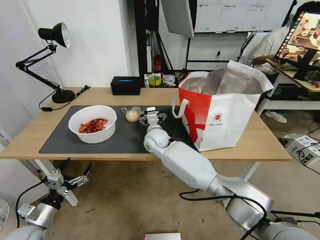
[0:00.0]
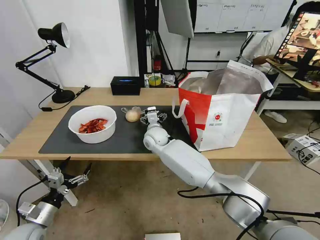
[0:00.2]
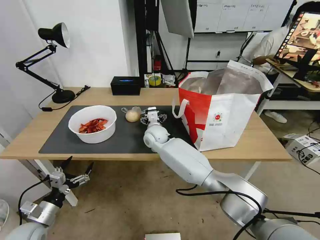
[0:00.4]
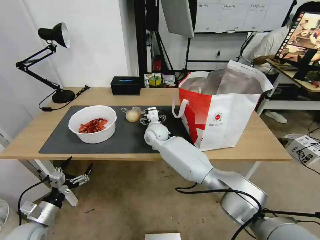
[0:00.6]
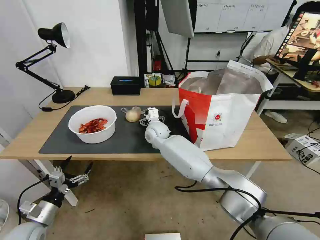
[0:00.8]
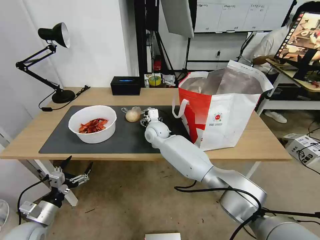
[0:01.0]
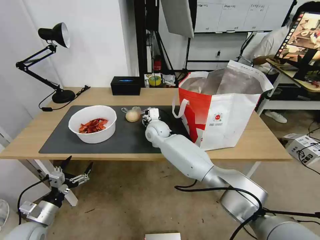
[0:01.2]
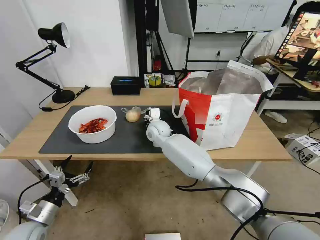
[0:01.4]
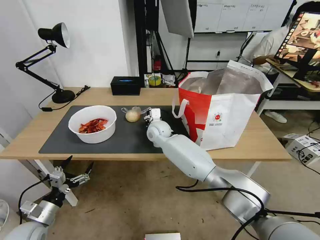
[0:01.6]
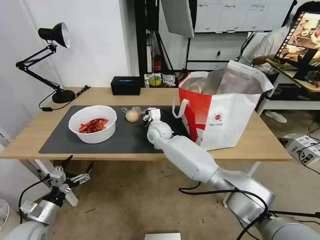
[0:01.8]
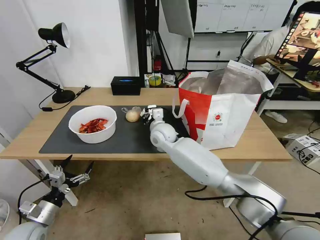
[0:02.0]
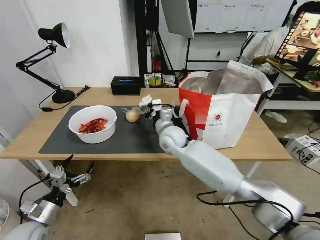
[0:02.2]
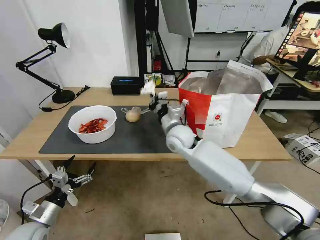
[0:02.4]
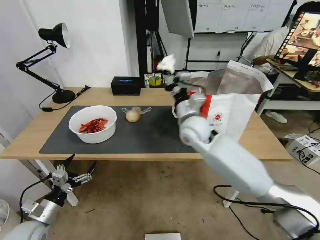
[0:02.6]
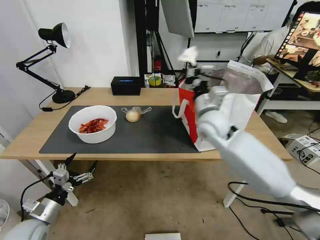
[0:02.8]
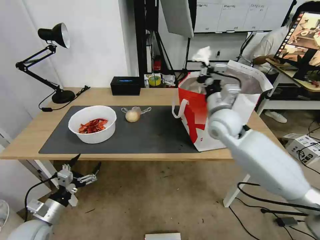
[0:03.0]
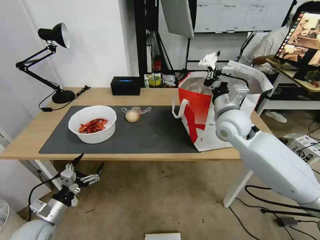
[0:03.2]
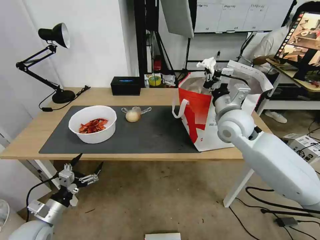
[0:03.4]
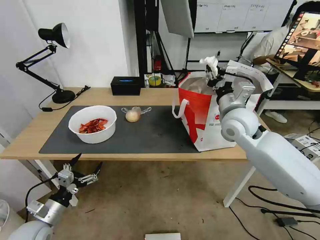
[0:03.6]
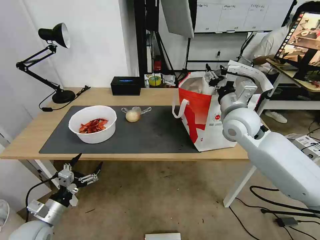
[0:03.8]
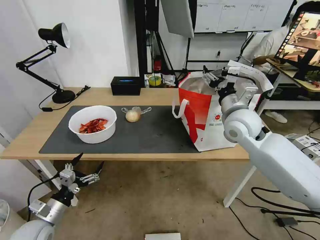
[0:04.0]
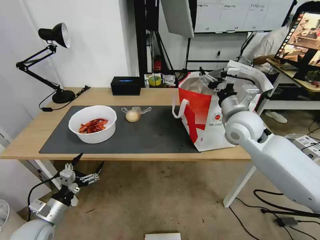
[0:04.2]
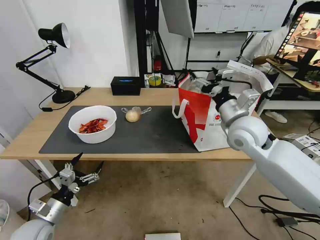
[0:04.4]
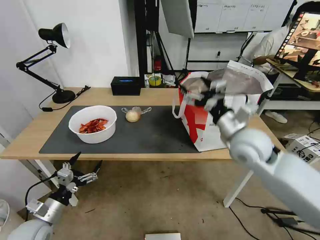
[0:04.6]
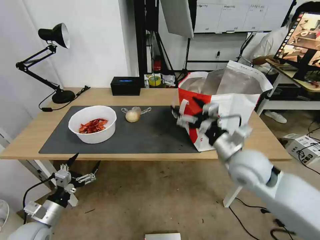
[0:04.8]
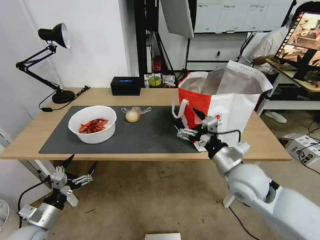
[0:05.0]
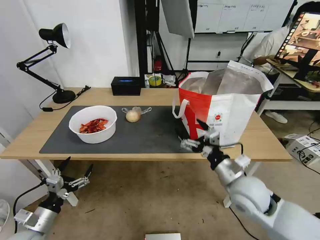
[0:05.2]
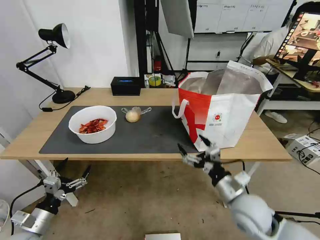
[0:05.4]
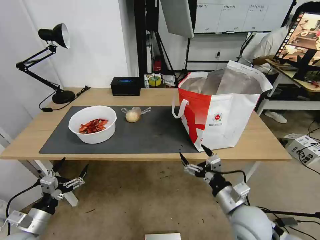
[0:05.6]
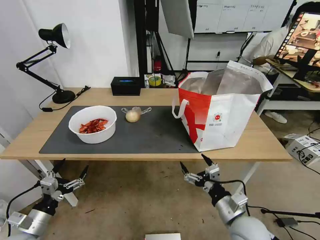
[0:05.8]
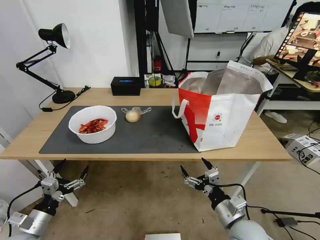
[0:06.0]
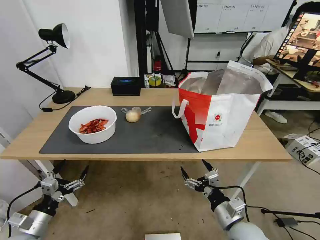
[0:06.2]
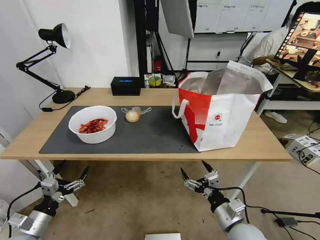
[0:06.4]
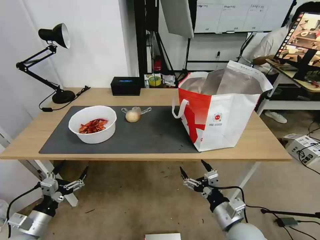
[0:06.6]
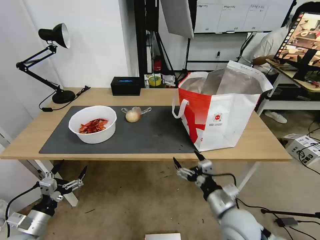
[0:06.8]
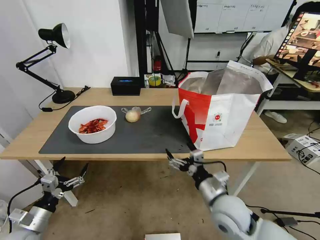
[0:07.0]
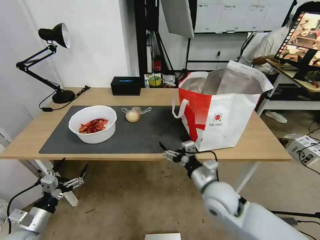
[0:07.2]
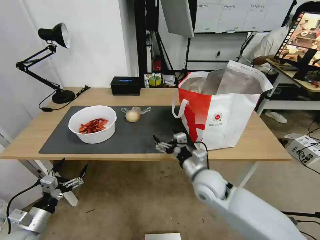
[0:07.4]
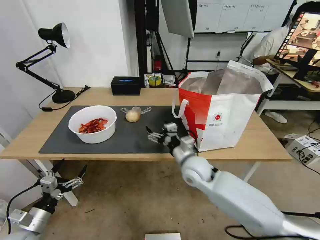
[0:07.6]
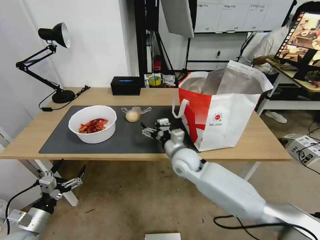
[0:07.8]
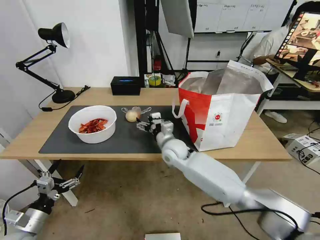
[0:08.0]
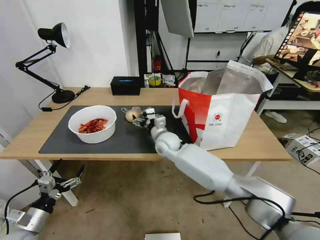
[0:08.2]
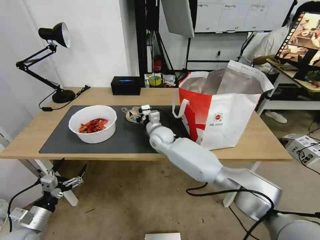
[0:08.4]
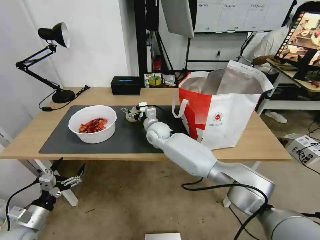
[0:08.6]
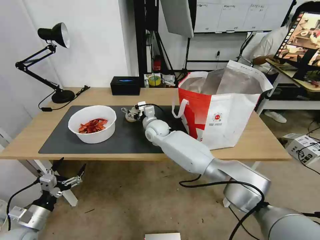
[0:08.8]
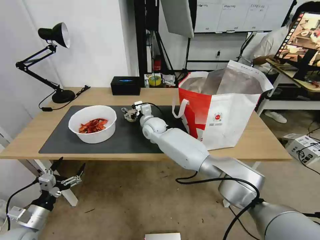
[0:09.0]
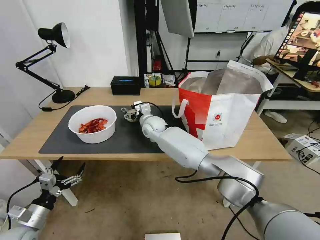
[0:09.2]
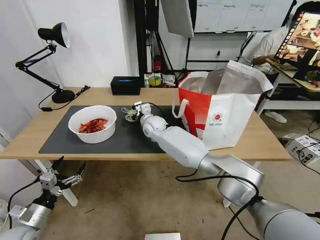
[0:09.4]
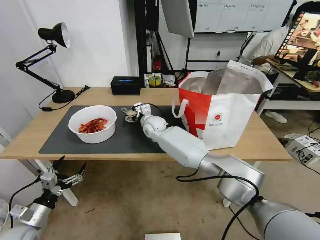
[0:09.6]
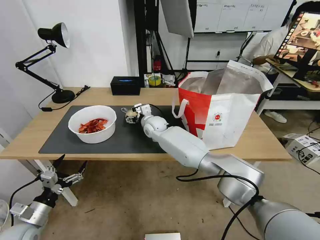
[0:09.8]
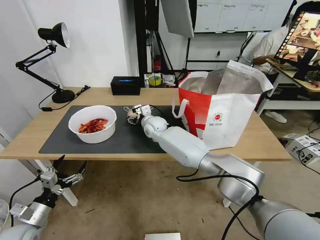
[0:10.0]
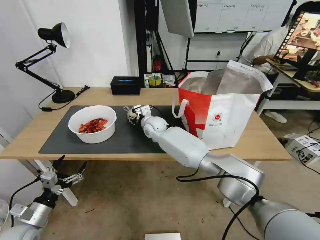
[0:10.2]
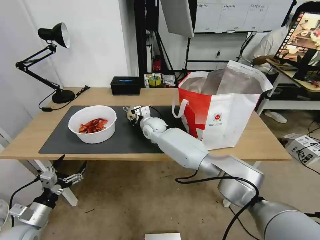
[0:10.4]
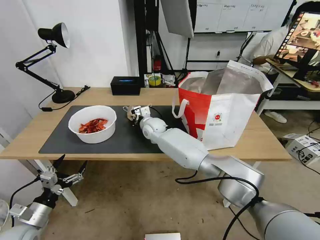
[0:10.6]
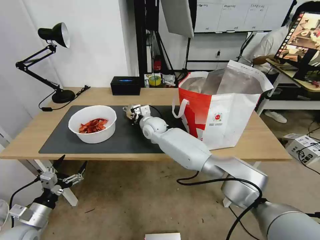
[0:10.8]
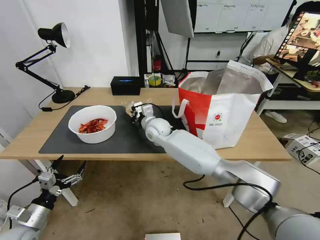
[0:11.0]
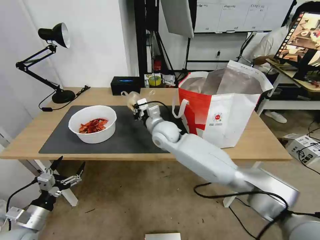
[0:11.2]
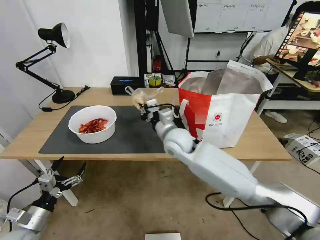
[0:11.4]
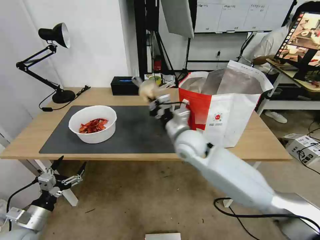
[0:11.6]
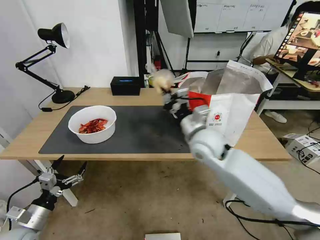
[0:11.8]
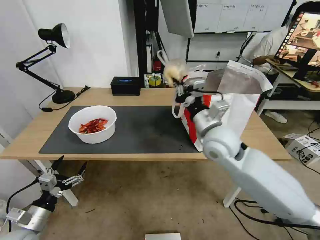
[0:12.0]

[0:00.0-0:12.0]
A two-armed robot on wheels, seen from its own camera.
Task of the whole recording: Pick up the trash from the table and place it into the takeout bag.
0:00.0 to 0:01.6: The right gripper closes its fingers.
0:01.6 to 0:03.0: The right gripper goes roughly 25 cm to the right, upward and backward.
0:03.0 to 0:04.4: The right gripper ends up roughly 5 cm from where it was, and opens up.
0:04.4 to 0:06.0: The right gripper travels backward and downward by about 30 cm.
0:06.0 to 0:07.6: The right gripper travels forward and to the left by some 20 cm.
0:07.6 to 0:09.0: The right gripper goes roughly 25 cm forward and to the left.
0:09.0 to 0:10.4: The right gripper closes its fingers.
0:10.4 to 0:12.0: The right gripper shifts about 30 cm to the right, backward and upward.

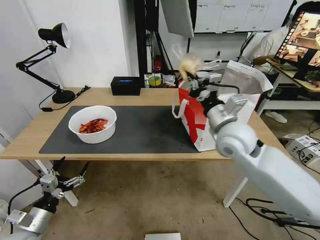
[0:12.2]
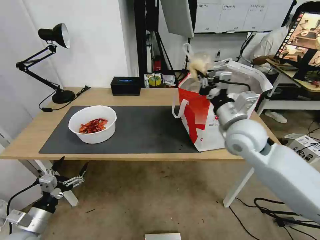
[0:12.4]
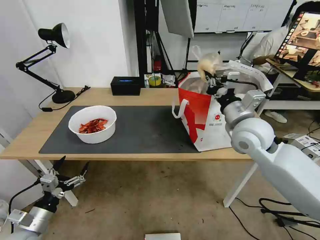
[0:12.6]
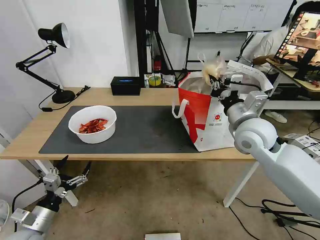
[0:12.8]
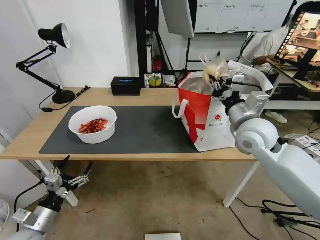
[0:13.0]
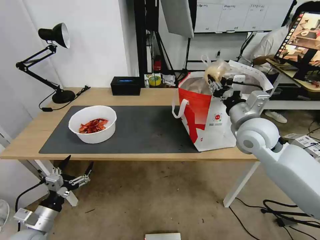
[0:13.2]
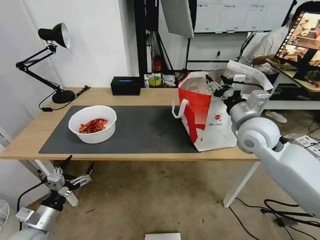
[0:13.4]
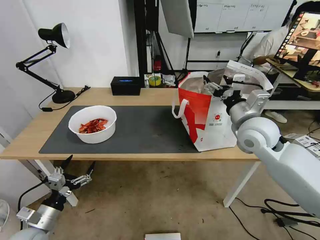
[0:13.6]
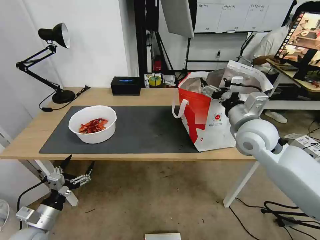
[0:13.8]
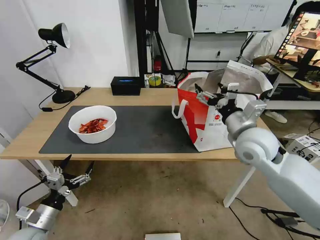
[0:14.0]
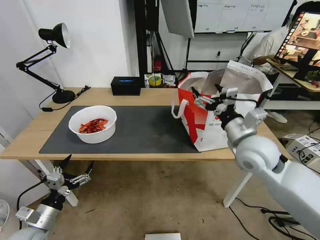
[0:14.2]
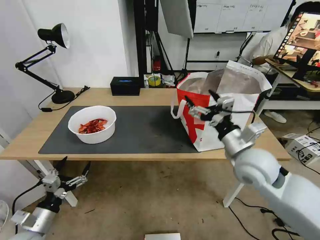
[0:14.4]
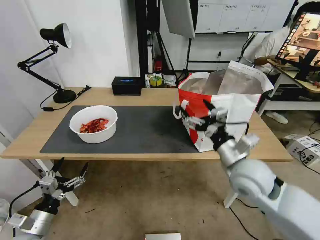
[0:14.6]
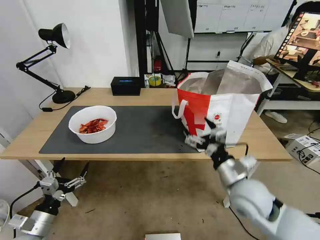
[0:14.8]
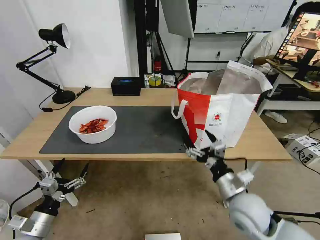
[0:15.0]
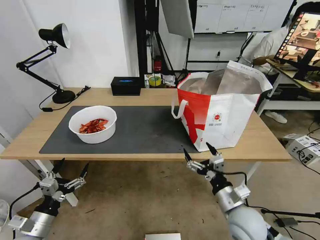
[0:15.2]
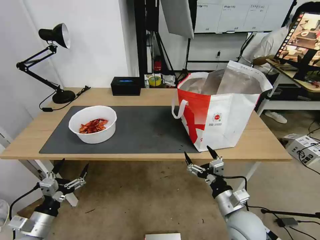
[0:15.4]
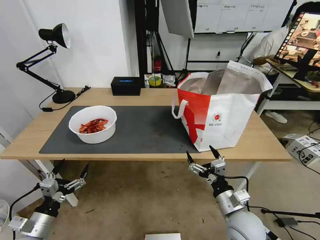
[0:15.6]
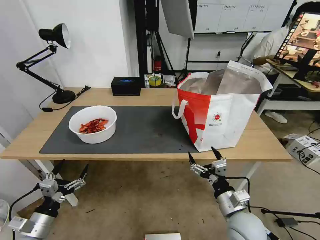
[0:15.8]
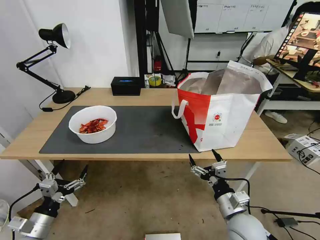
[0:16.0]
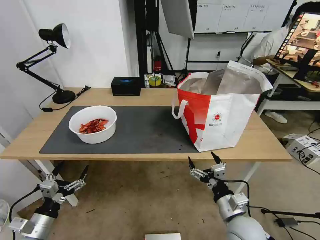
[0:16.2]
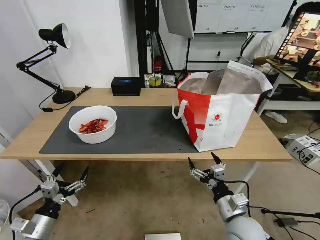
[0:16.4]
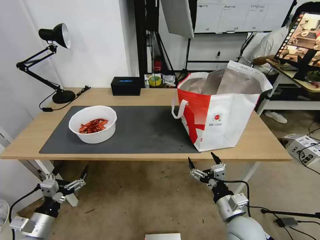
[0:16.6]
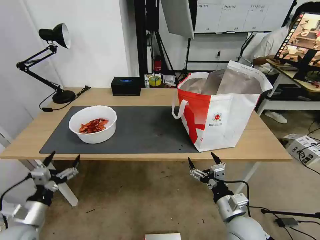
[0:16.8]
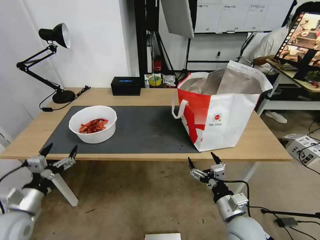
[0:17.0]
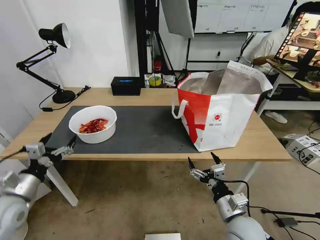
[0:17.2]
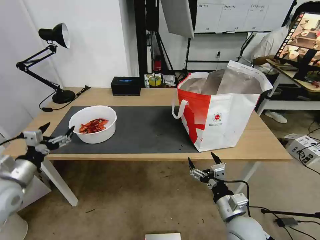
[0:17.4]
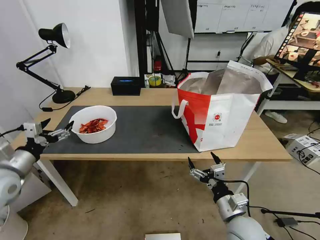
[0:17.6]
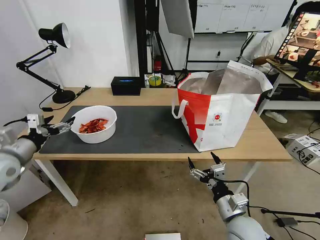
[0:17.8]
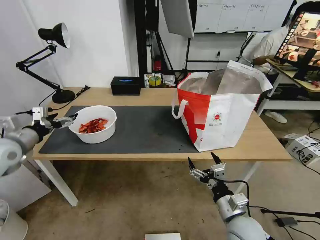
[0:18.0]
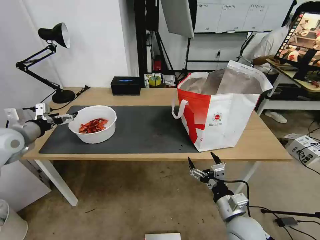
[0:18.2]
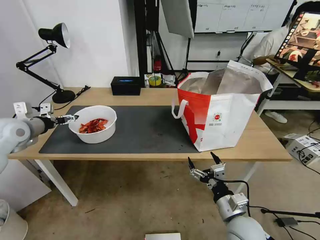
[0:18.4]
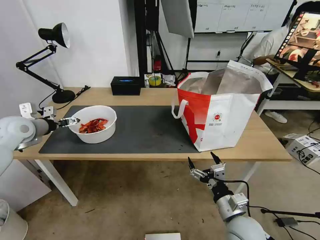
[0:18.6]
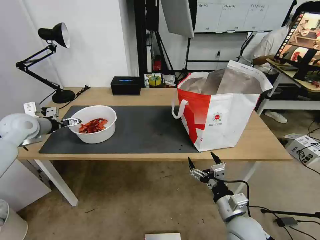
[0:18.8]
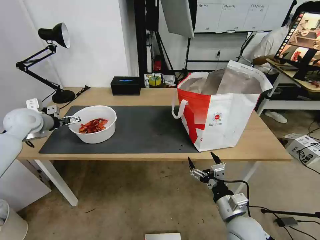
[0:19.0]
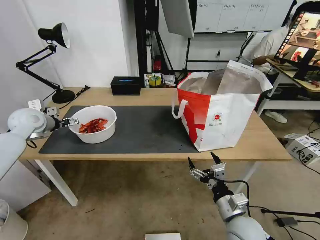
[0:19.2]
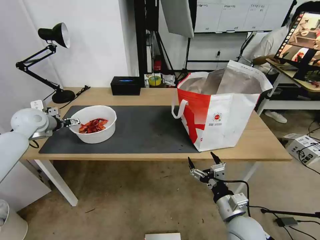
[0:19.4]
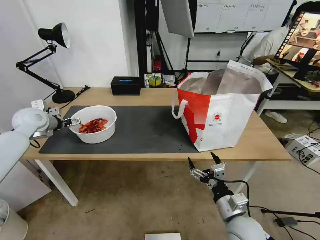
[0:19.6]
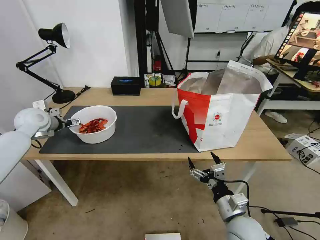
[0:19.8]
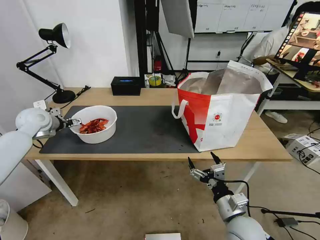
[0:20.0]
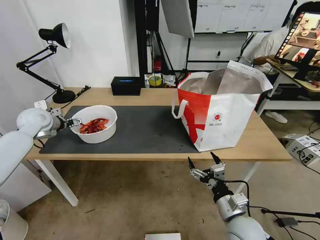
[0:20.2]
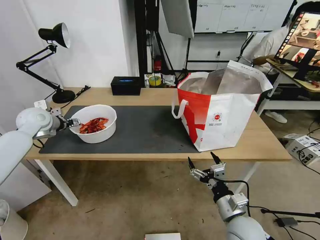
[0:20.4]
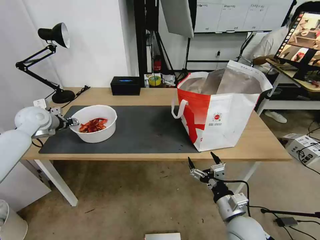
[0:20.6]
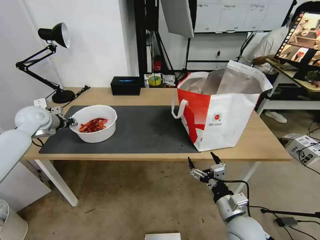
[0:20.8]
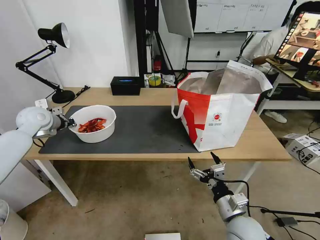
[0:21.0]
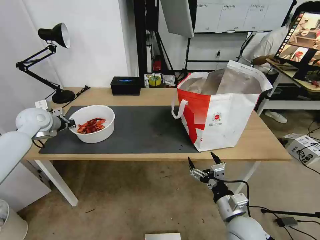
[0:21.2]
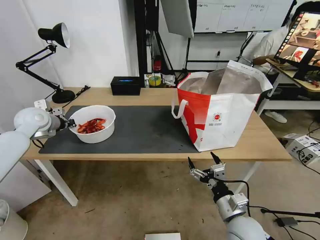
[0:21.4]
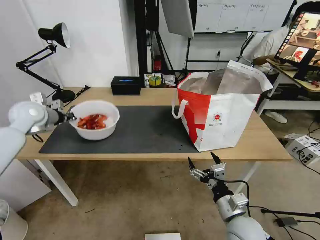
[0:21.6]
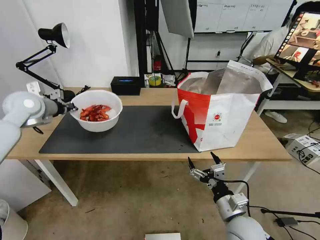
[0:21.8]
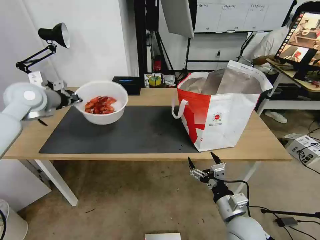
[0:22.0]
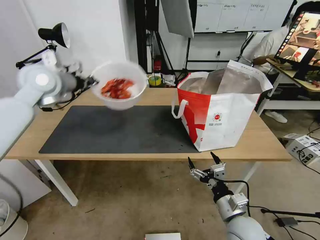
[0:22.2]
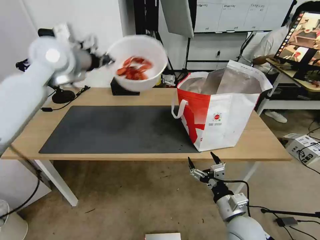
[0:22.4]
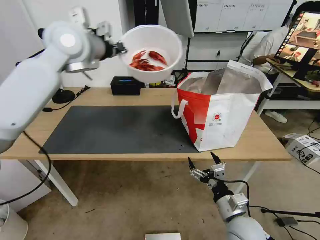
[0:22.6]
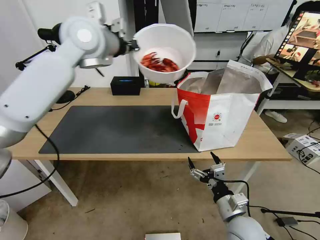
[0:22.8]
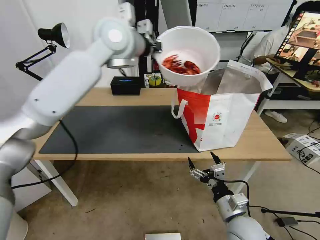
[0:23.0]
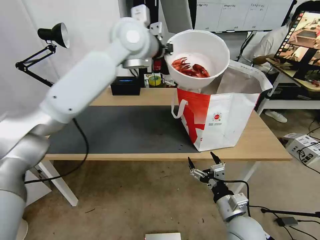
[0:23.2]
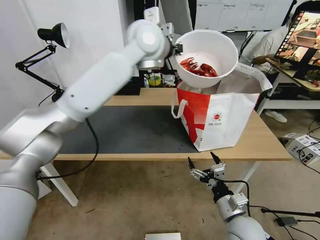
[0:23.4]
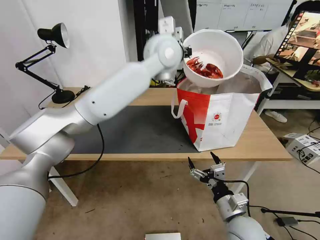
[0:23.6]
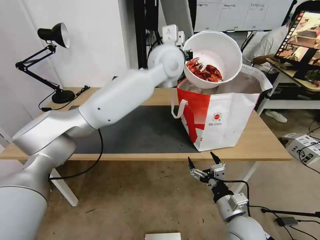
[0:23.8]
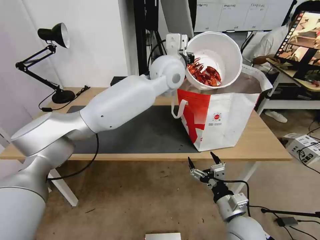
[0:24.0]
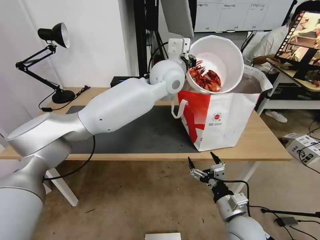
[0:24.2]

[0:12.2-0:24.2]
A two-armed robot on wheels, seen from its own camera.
Task of the whole recording: Pick up the trash from the table and place it into the takeout bag.
0:12.2 to 0:13.8: The right gripper moves to the right, about 5 cm, and opens.
0:13.8 to 0:15.2: The right gripper goes approximately 25 cm downward and backward.
0:15.2 to 0:16.6: There are only small adjustments of the grippers.
0:16.6 to 0:18.2: The left gripper travels forward and upward by about 30 cm.
0:18.2 to 0:19.8: The left gripper goes approximately 10 cm forward.
0:19.8 to 0:21.2: The left gripper closes up.
0:21.2 to 0:22.6: The left gripper is displaced upward and to the right by about 30 cm.
0:22.6 to 0:24.2: The left gripper heads to the right, covering some 25 cm.
